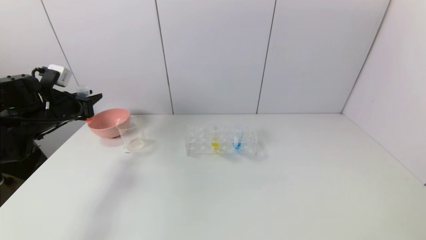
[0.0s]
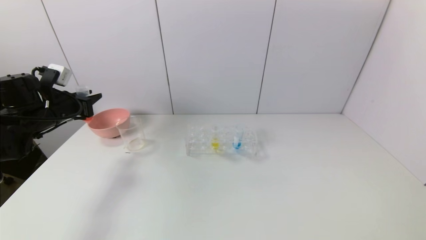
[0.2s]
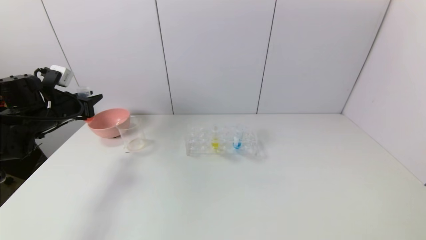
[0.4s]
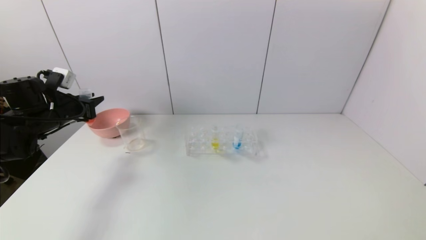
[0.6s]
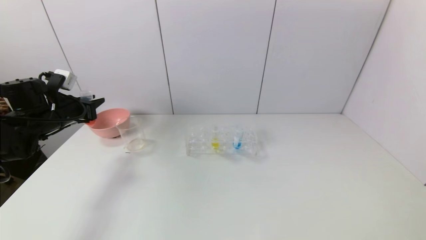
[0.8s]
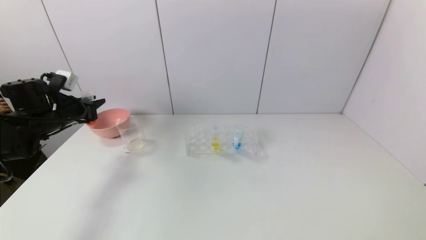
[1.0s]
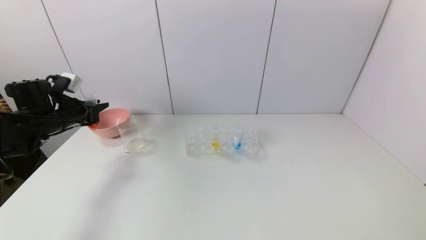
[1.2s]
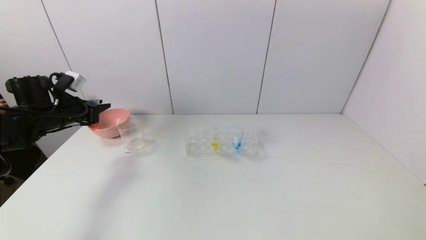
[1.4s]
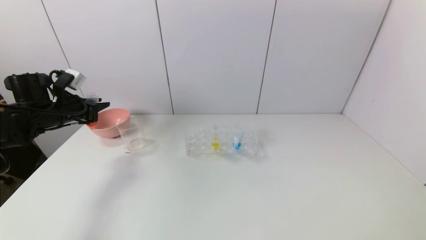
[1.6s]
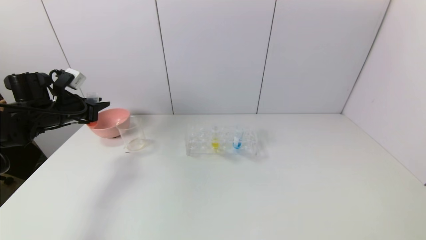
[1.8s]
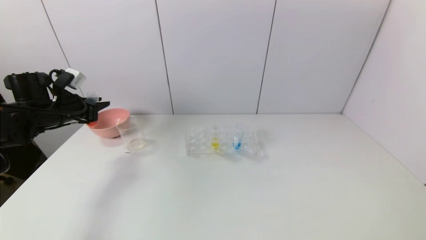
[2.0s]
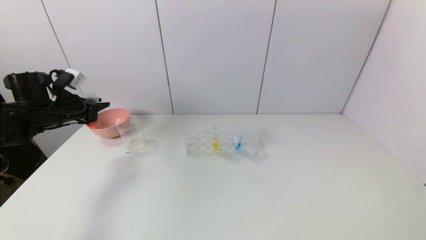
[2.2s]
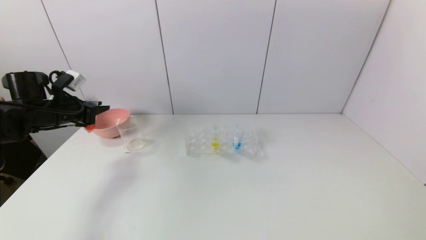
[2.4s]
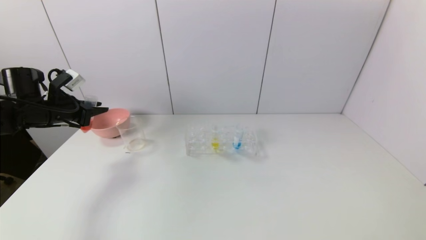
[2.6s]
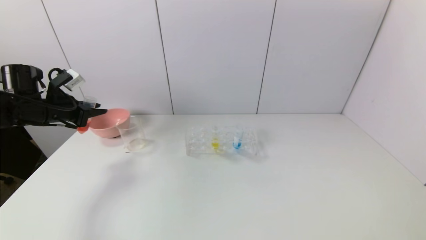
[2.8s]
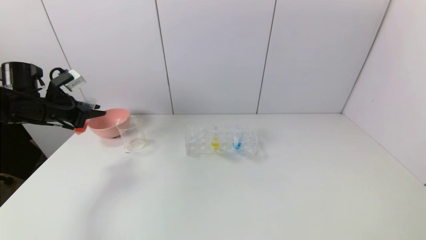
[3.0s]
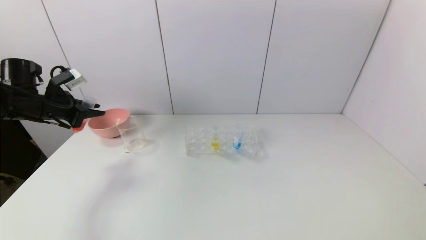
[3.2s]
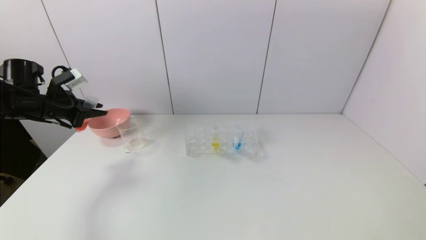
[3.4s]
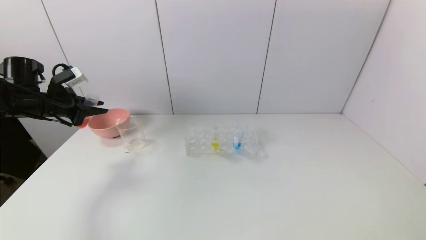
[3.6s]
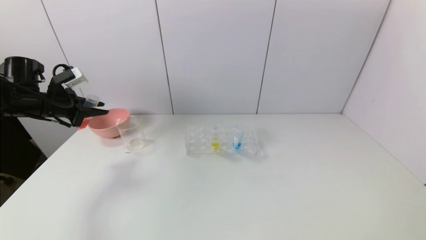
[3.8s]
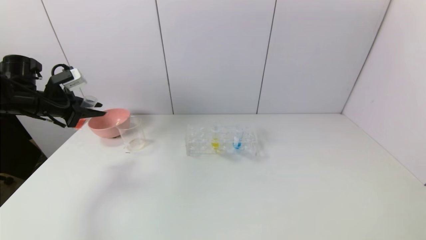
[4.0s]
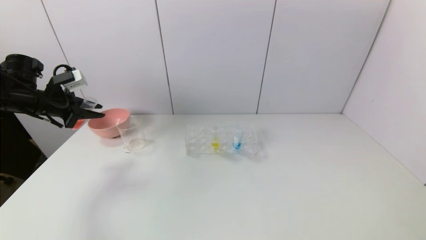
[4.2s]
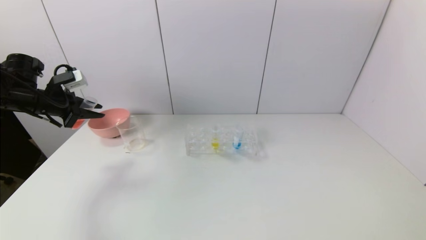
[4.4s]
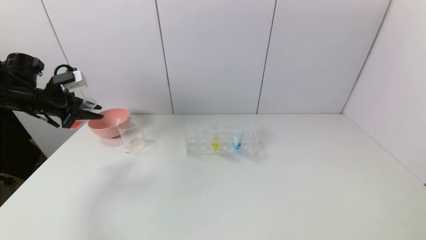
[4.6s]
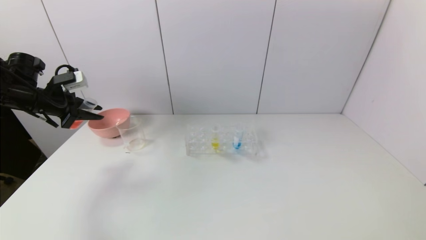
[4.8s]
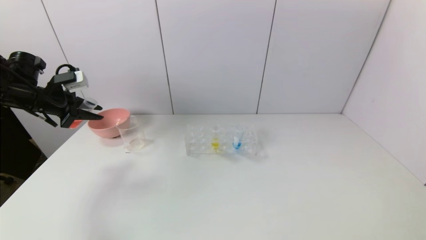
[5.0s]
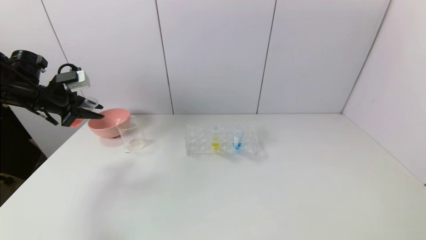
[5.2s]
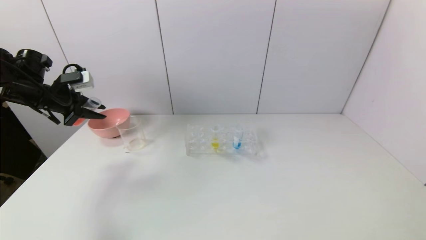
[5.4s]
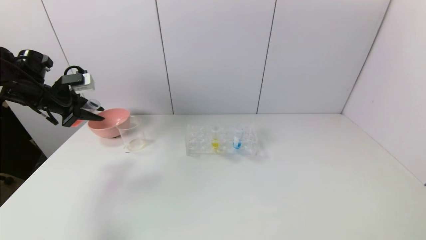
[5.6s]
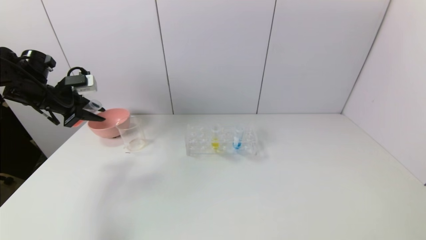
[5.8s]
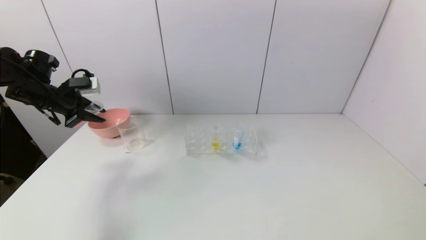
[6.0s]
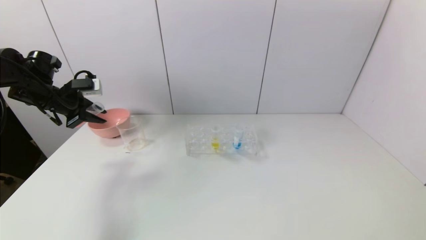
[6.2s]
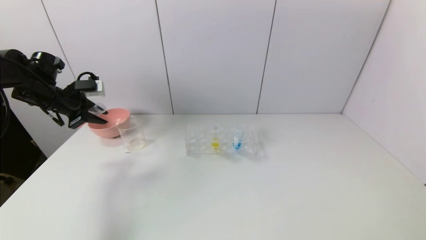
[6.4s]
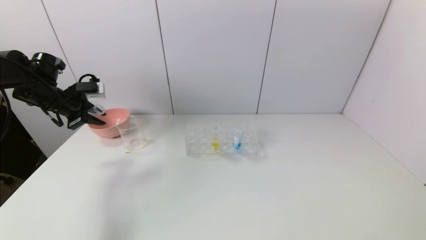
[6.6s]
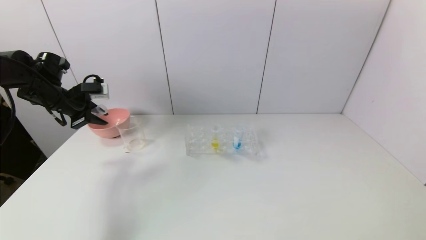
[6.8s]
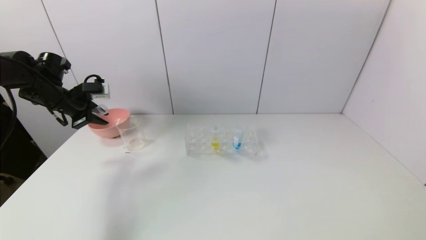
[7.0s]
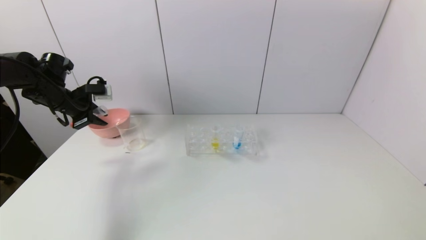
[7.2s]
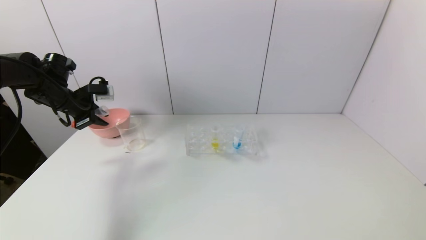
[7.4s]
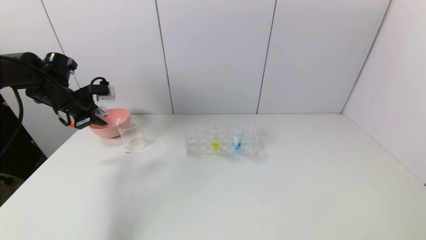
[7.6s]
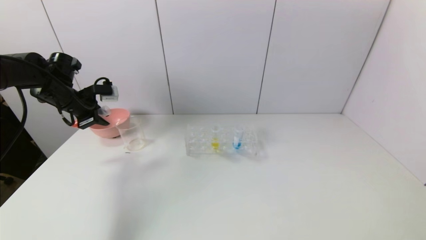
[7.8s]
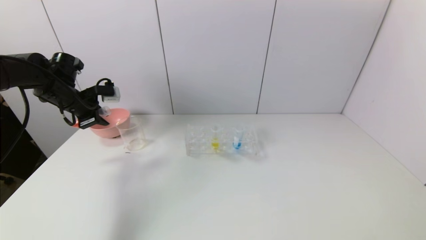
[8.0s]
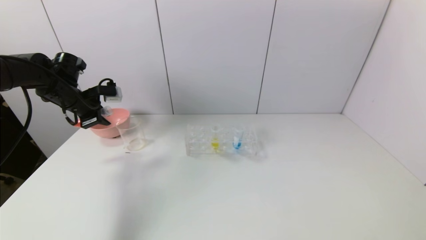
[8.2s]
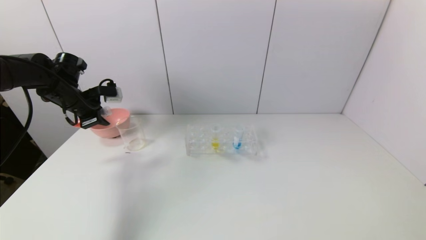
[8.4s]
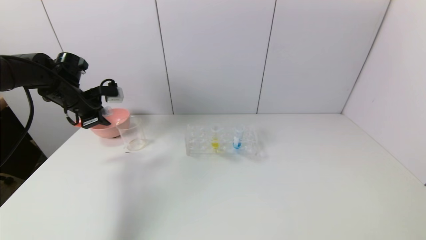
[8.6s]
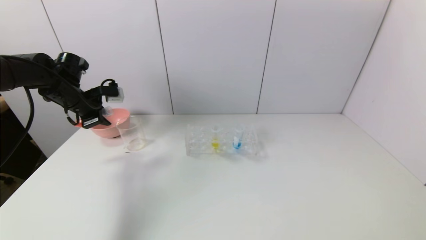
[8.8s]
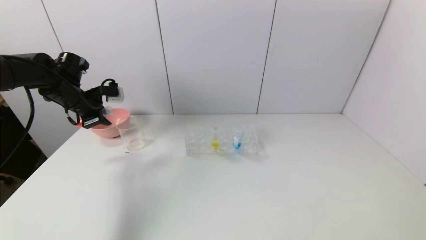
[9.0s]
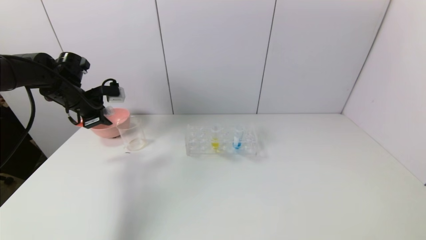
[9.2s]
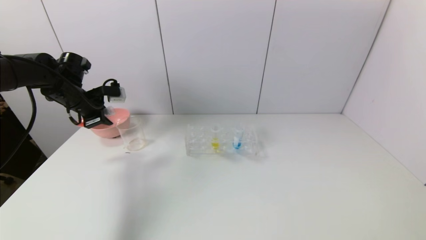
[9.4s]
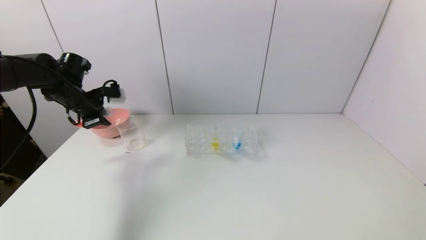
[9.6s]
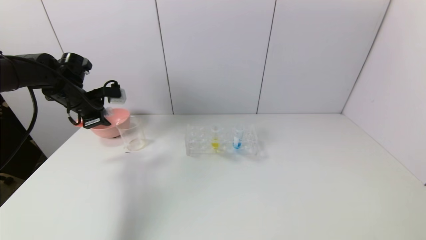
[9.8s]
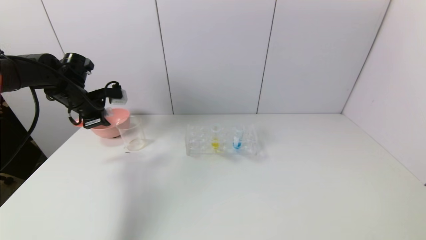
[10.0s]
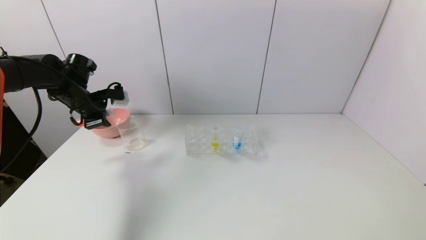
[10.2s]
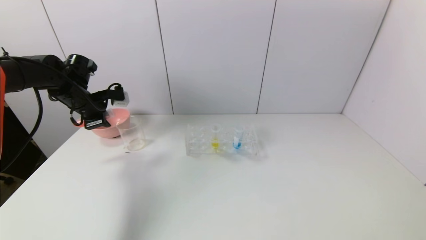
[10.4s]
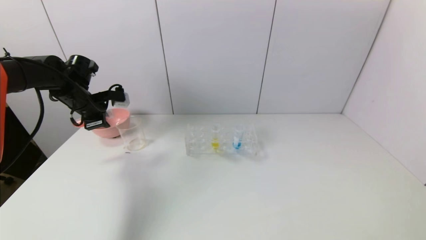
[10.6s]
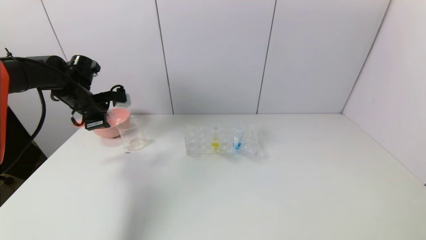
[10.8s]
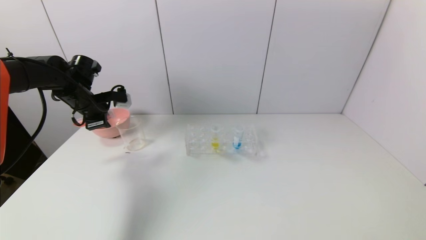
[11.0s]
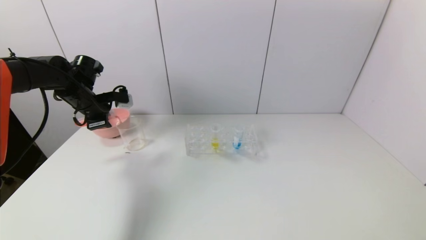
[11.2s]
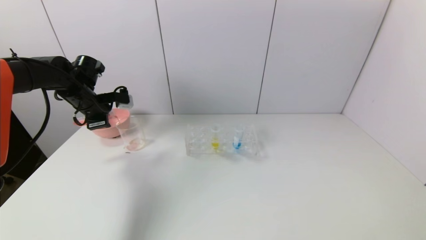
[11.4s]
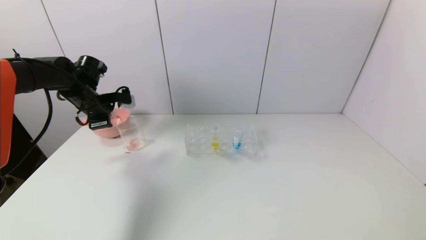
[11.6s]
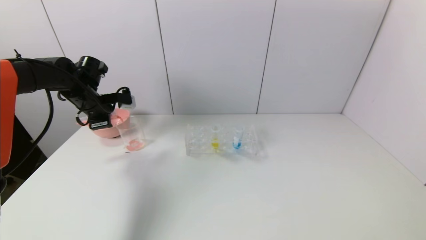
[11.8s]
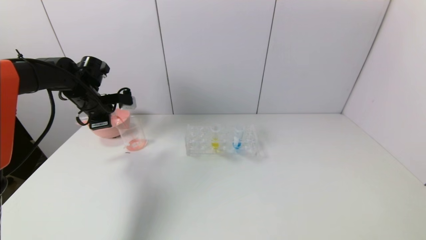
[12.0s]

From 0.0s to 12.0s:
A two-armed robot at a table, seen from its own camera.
Task of the whole recording: pick up the test tube with yellow pigment and the test tube with red pigment by grippers and pour them into the beaker.
From 0.0s to 1.6s: The grippers move only a little.
From 1.6s to 3.0s: The grippers stay close to where they were, moving slightly.
From 4.4s to 6.0s: The grippers make only small movements.
From 6.0s to 9.0s: The grippers make only small movements.
From 9.0s to 12.0s: The grippers make only small movements.

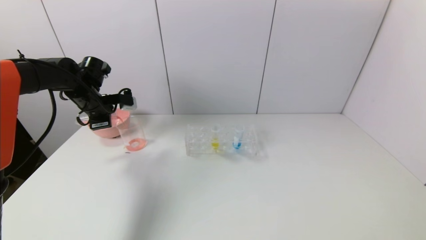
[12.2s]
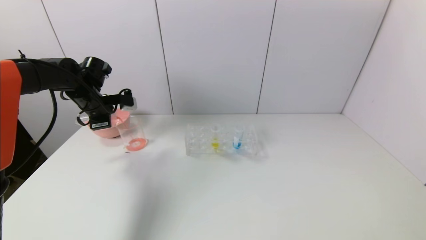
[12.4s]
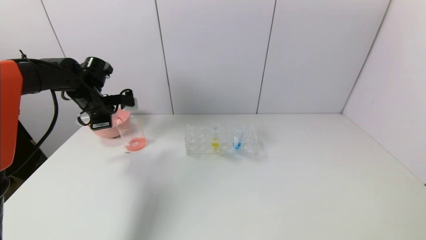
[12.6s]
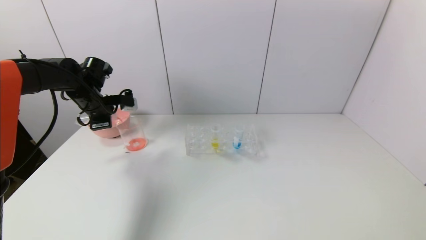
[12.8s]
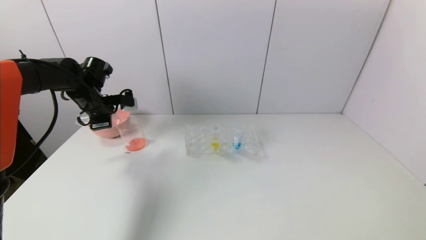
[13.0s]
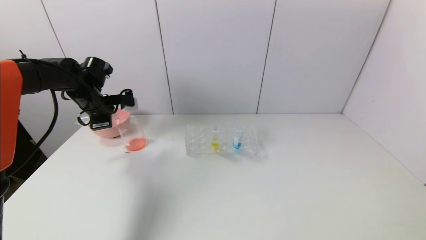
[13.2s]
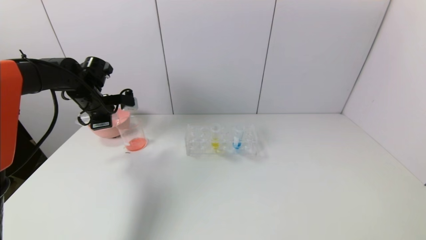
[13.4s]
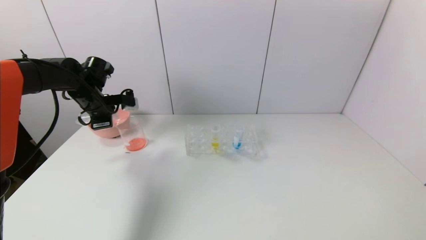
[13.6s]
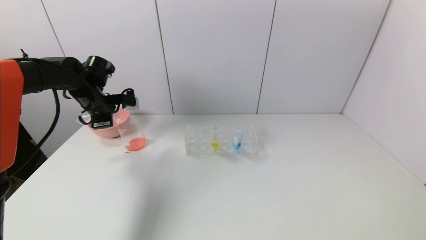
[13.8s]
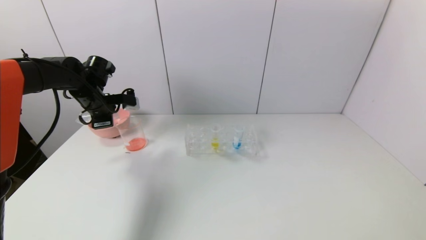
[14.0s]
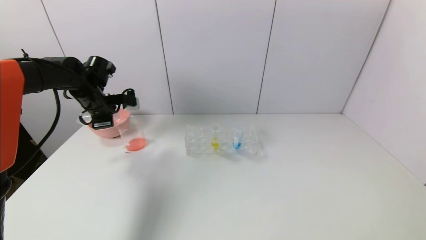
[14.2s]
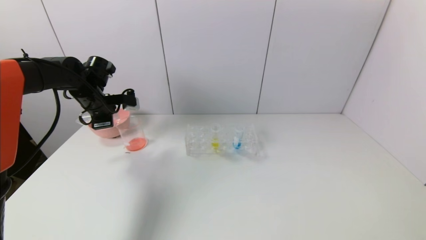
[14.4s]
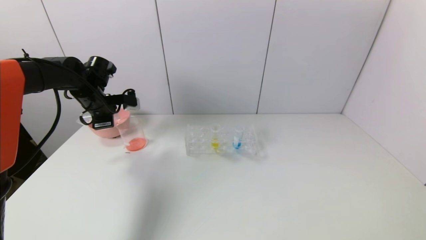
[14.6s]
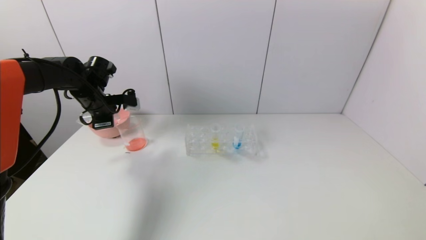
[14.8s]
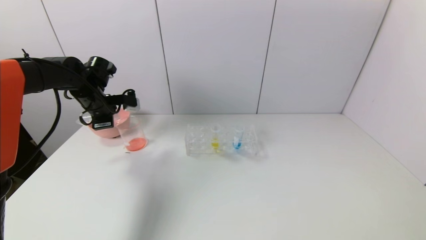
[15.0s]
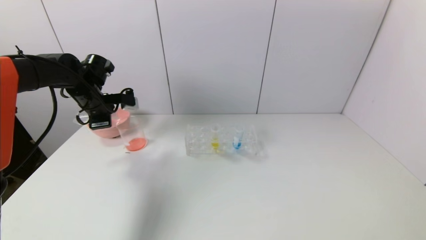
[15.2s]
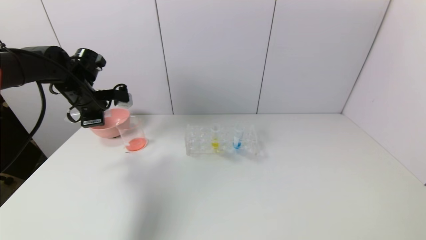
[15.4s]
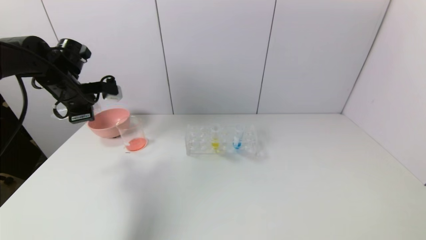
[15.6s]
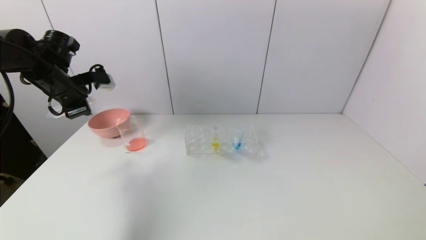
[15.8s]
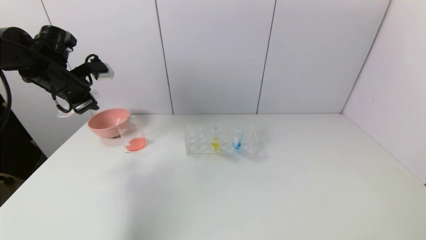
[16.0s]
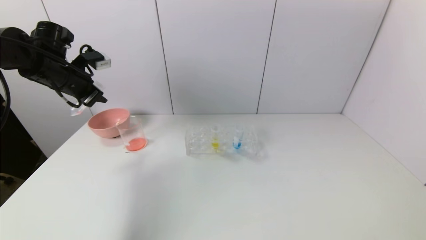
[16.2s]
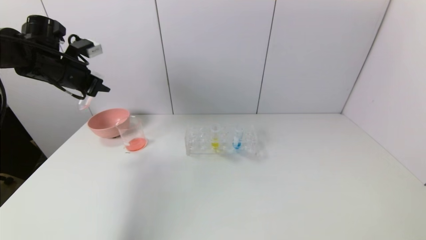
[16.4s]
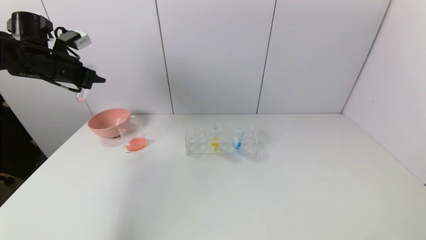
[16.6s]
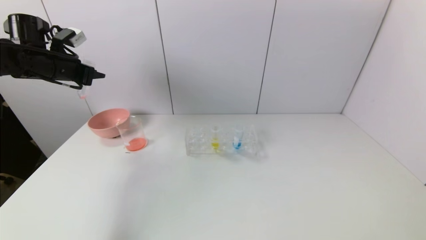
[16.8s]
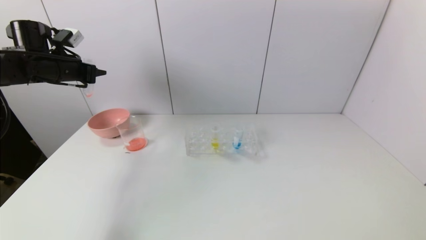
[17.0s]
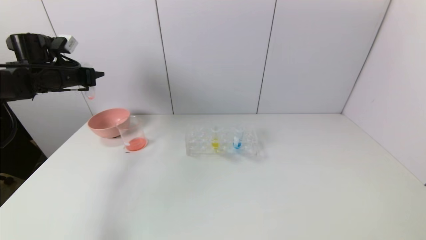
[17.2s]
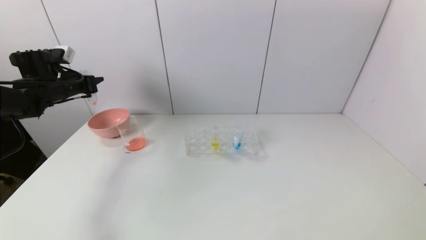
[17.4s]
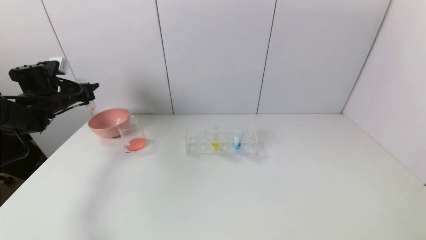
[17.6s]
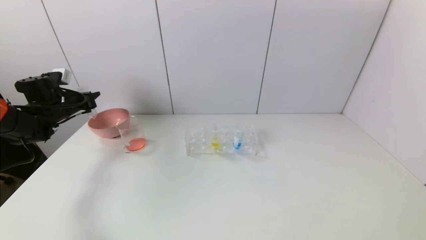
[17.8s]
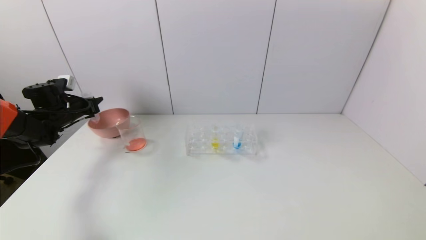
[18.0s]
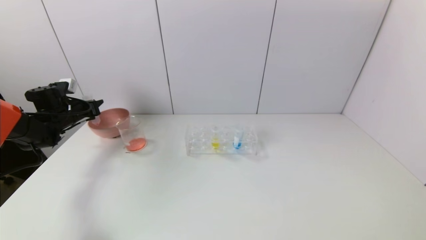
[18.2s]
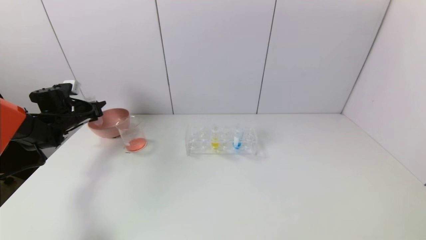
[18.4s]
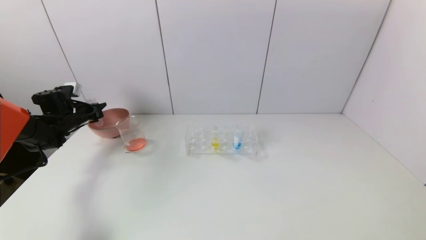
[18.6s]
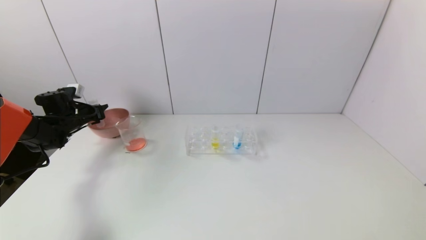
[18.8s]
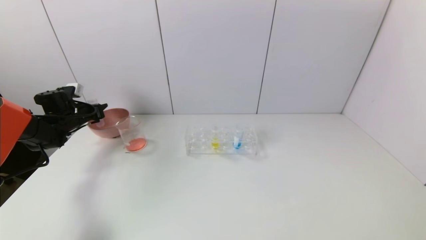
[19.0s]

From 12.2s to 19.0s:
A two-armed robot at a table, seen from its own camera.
Task of the whole recording: pick up the test tube with yellow pigment and the test tube with red pigment by grippers and pour them into the beaker.
Step, from 12.2s to 14.8s: Pour the red reagent into the graduated cylinder with the left gripper.
From 12.2s to 15.0s: The two grippers keep their place.
From 15.0s to 16.2s: The left gripper travels upward by some 5 cm.
From 16.2s to 17.6s: The left gripper moves downward and to the left, some 10 cm.
From 17.6s to 19.0s: The left gripper goes approximately 10 cm downward.
